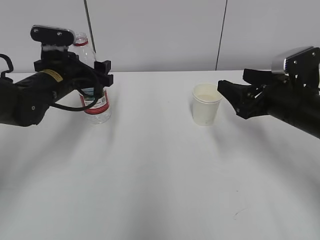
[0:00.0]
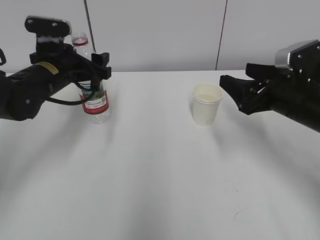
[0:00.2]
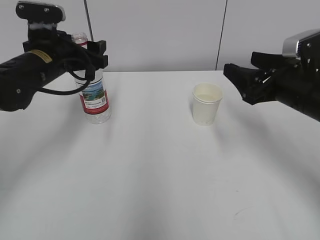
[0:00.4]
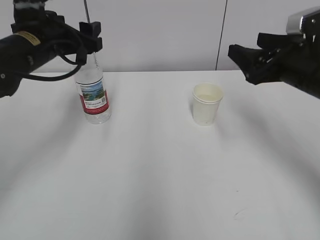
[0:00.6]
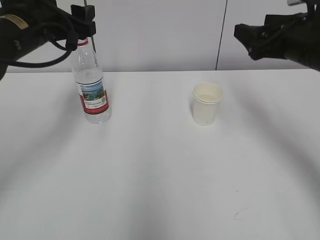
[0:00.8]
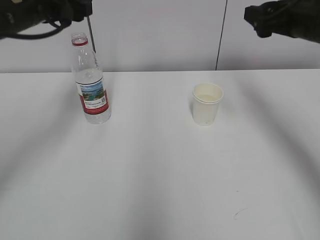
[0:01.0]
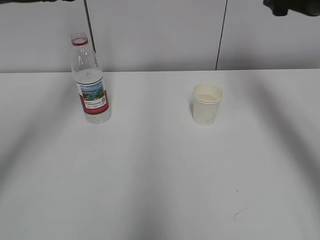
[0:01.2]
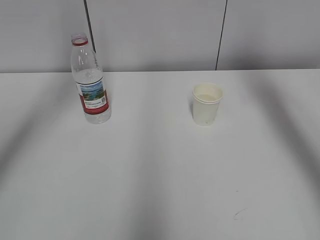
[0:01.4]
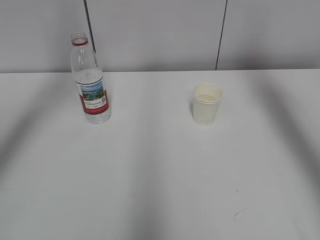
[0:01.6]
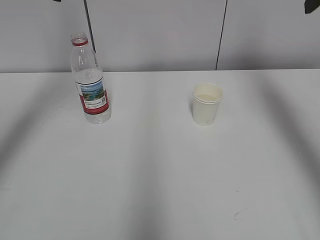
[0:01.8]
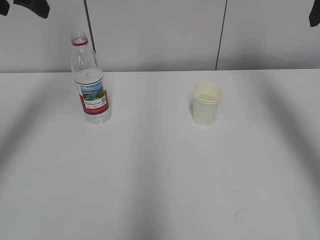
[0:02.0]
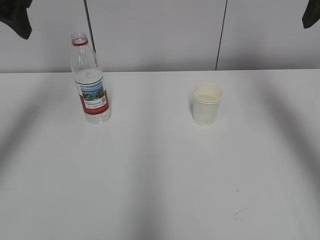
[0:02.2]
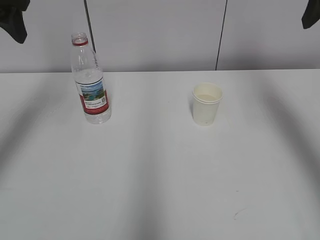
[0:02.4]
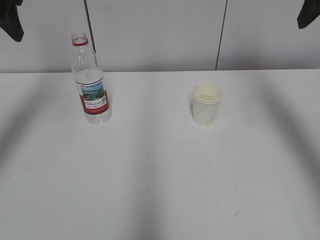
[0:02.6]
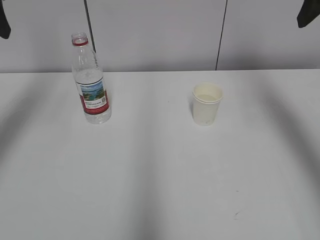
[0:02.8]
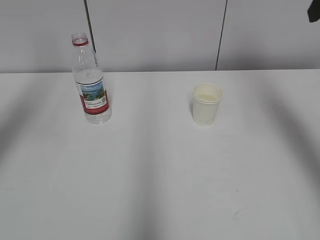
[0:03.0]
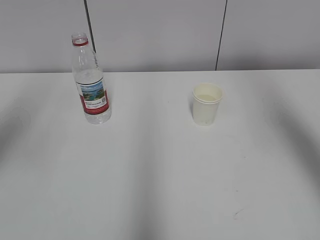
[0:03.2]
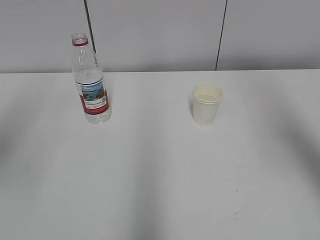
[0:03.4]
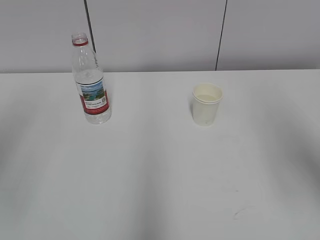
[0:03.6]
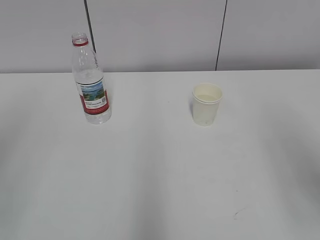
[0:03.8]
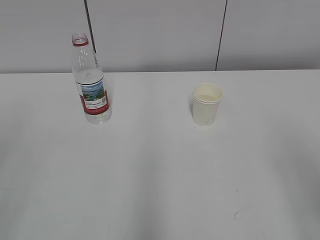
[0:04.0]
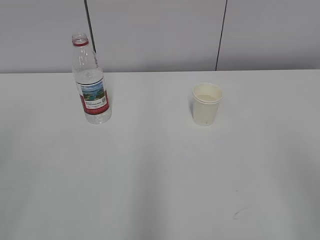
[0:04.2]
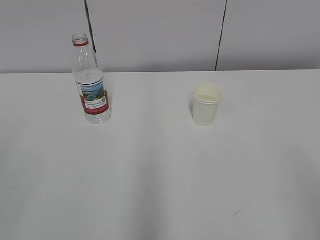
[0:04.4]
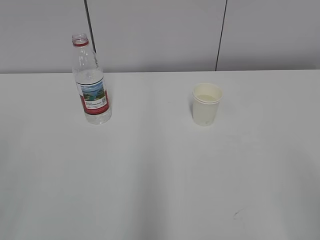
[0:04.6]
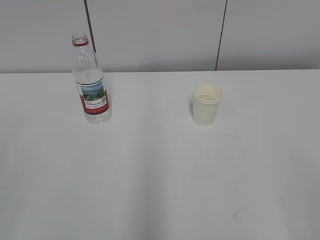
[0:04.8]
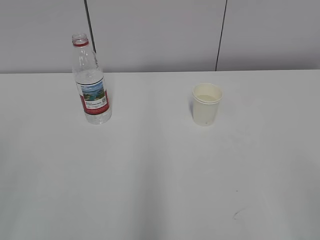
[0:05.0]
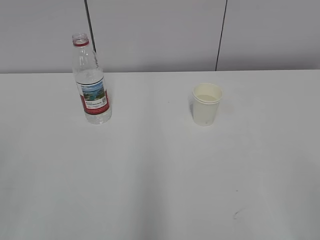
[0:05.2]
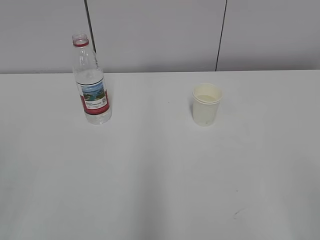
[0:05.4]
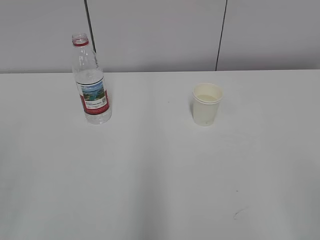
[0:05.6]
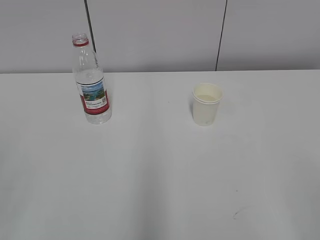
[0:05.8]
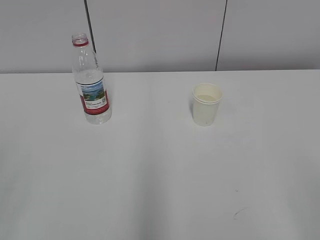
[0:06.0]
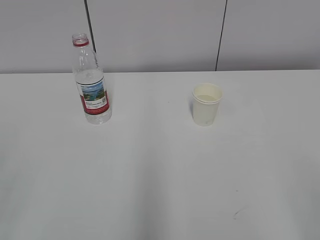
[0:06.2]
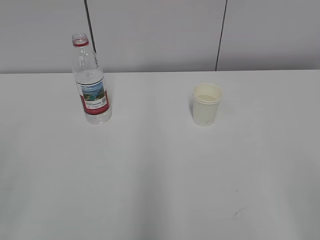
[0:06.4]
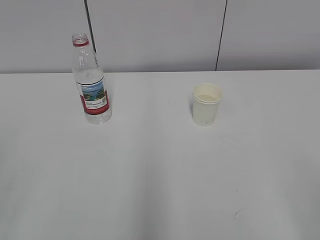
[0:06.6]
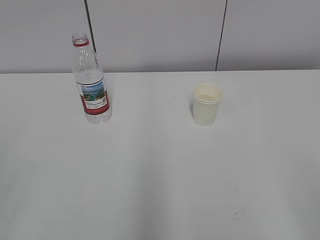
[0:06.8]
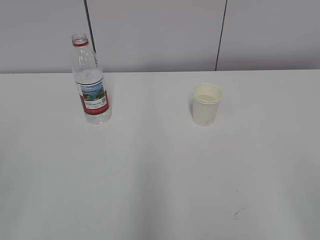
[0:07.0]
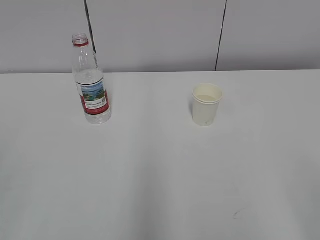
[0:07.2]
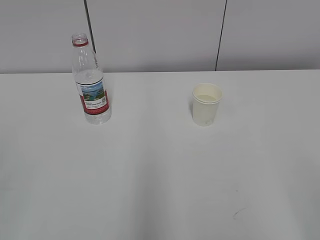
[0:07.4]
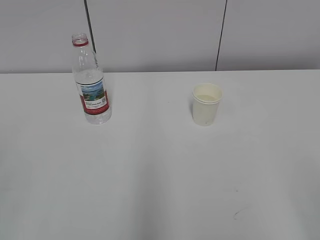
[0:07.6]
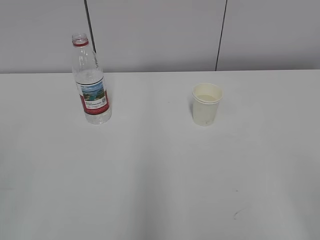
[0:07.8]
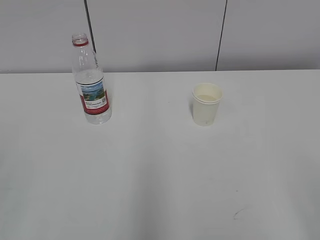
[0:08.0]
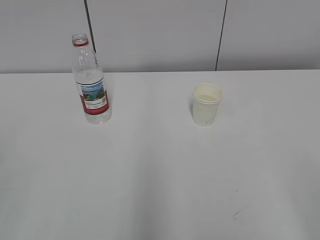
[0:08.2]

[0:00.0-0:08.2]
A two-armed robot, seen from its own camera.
0:00.0 to 0:01.6: Both grippers move upward, some 20 cm.
0:01.6 to 0:03.2: The left gripper shifts about 15 cm backward and to the left.
0:03.2 to 0:05.0: The left gripper travels backward by about 25 cm, and closes its fingers, while the right gripper shifts some 30 cm backward and downward.
